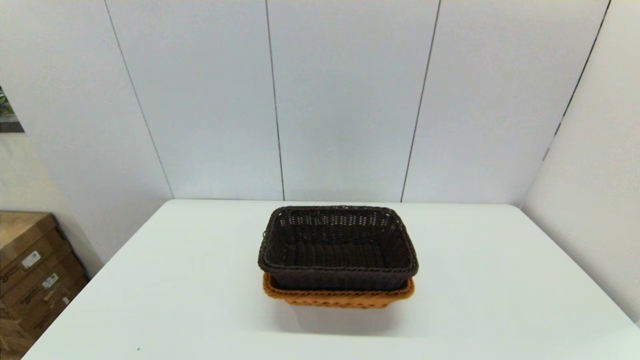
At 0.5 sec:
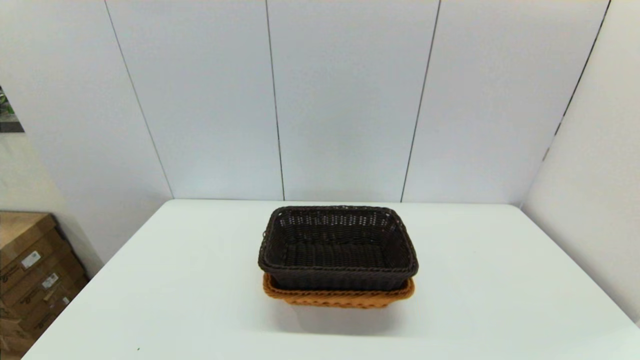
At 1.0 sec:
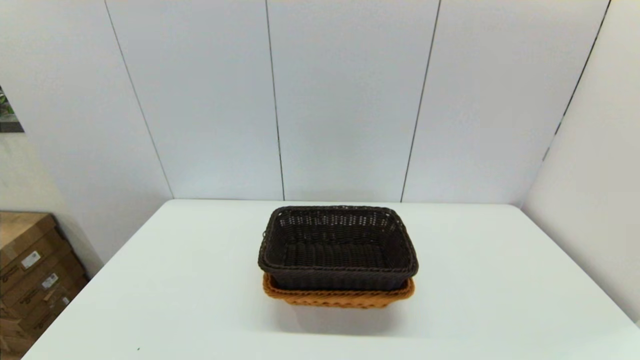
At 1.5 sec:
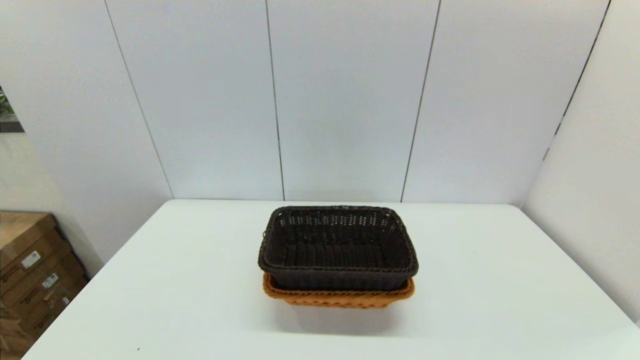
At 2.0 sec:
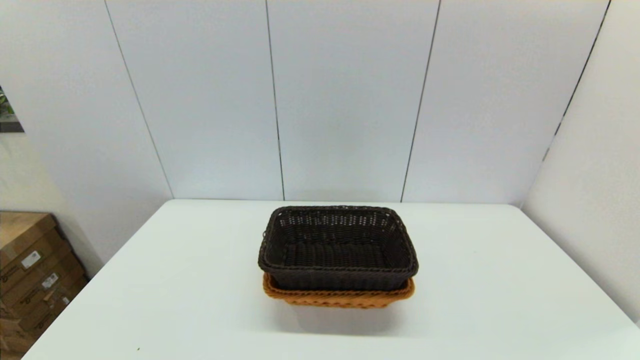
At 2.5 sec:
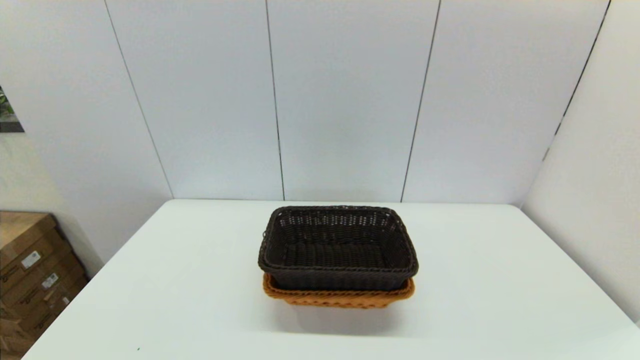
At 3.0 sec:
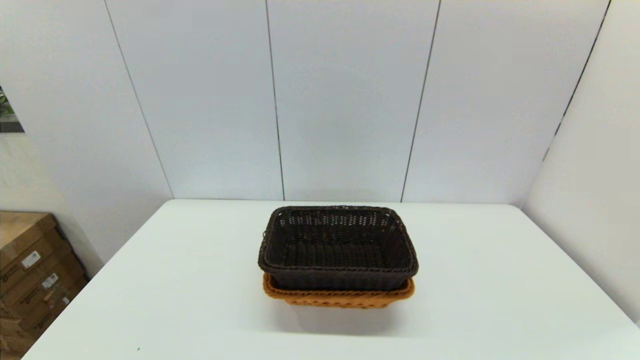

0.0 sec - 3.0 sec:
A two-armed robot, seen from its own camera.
Task of the whole recording: stack a basket on top of another basket.
1.5 sec - 3.0 sec: Both grippers stay put.
